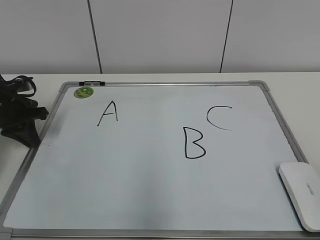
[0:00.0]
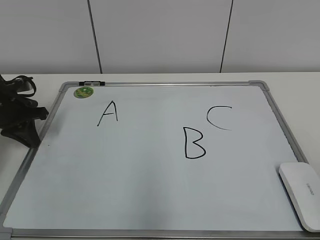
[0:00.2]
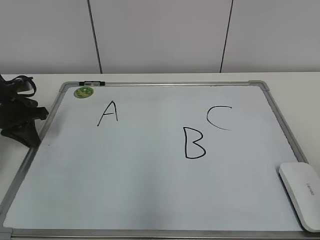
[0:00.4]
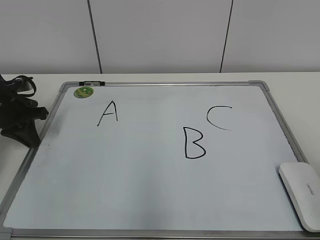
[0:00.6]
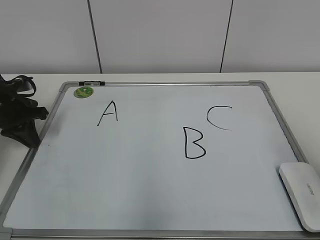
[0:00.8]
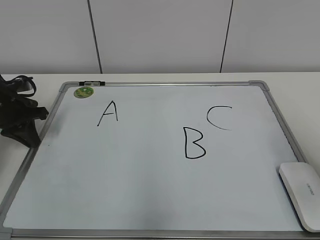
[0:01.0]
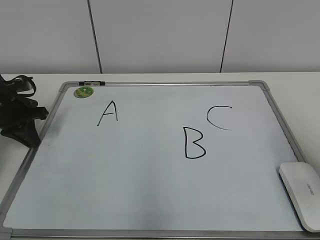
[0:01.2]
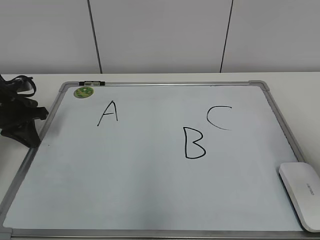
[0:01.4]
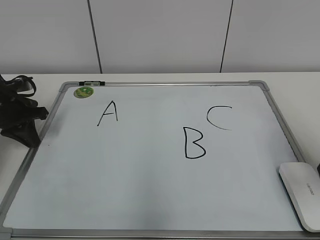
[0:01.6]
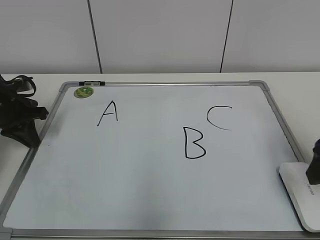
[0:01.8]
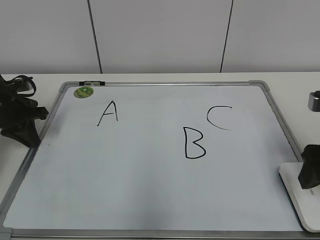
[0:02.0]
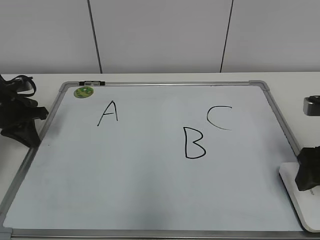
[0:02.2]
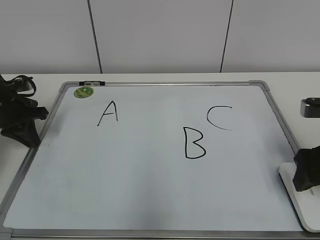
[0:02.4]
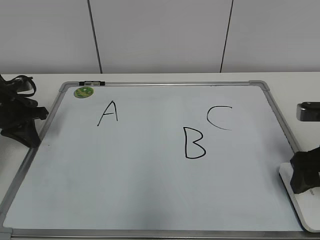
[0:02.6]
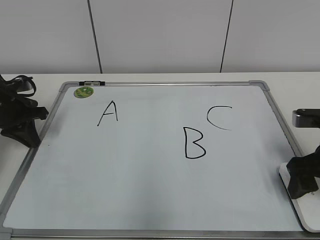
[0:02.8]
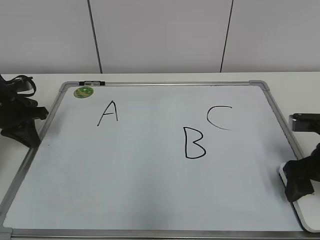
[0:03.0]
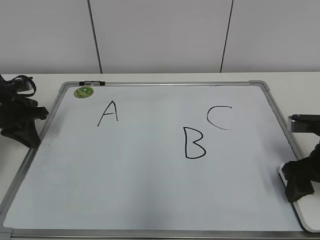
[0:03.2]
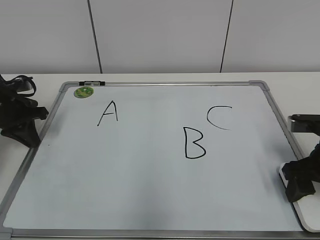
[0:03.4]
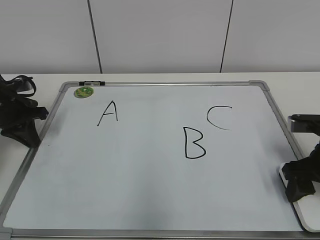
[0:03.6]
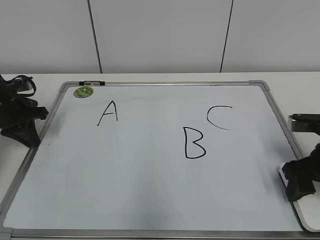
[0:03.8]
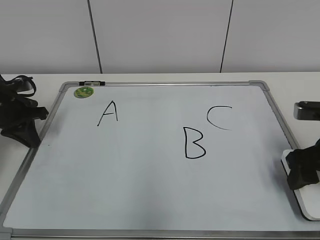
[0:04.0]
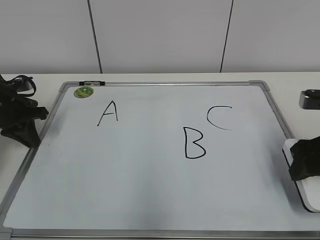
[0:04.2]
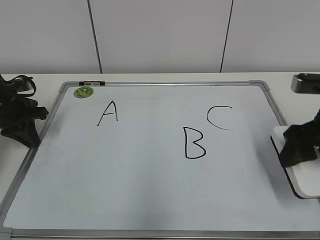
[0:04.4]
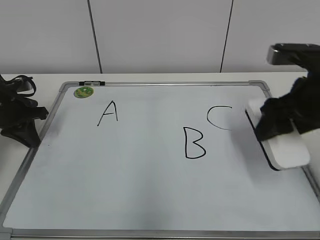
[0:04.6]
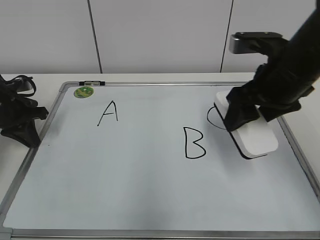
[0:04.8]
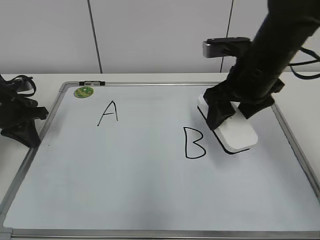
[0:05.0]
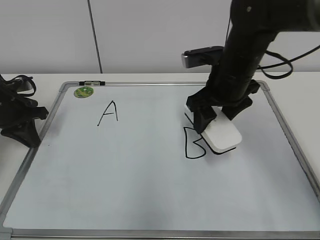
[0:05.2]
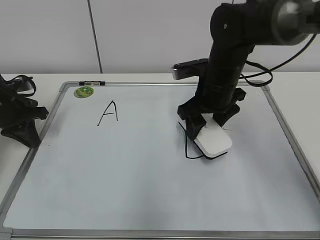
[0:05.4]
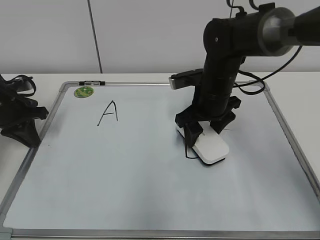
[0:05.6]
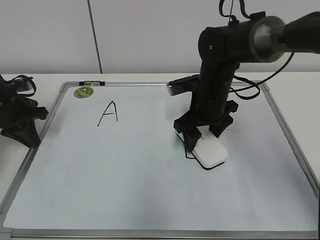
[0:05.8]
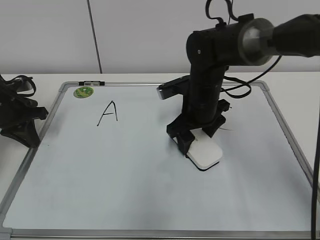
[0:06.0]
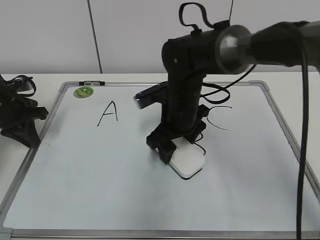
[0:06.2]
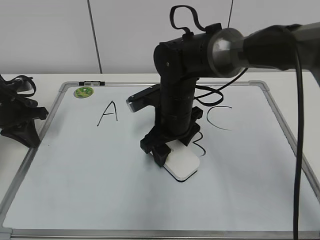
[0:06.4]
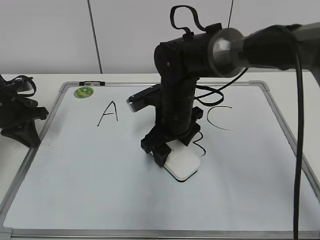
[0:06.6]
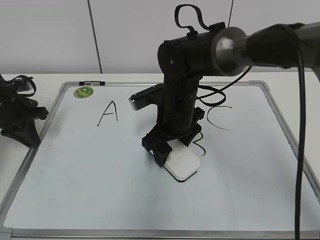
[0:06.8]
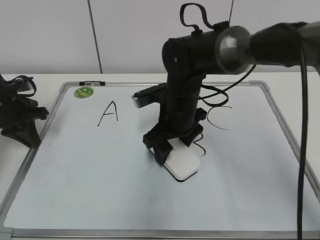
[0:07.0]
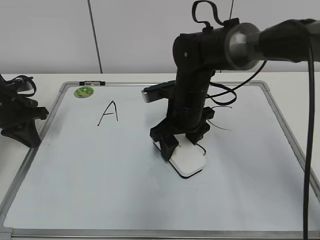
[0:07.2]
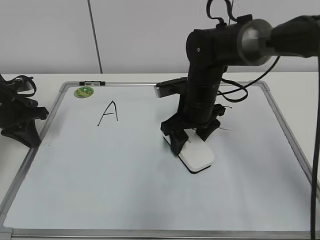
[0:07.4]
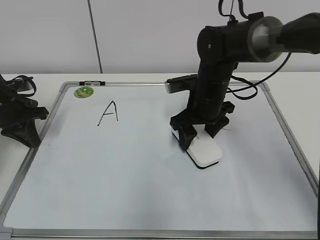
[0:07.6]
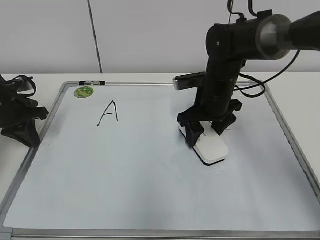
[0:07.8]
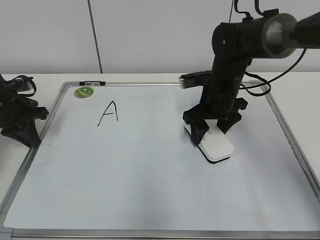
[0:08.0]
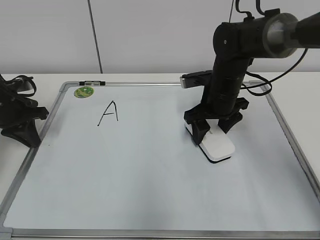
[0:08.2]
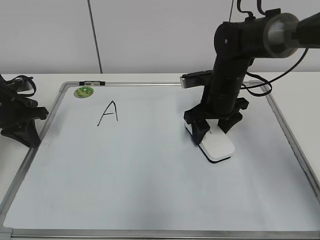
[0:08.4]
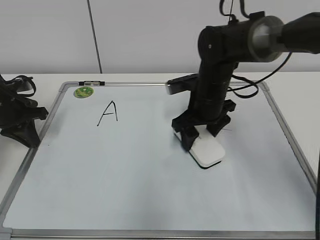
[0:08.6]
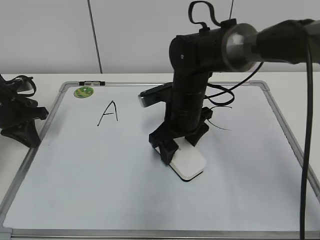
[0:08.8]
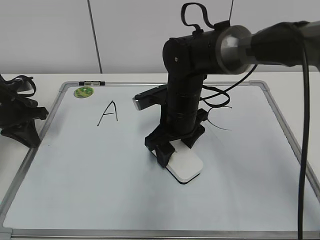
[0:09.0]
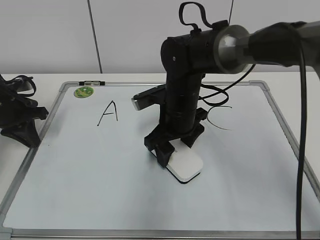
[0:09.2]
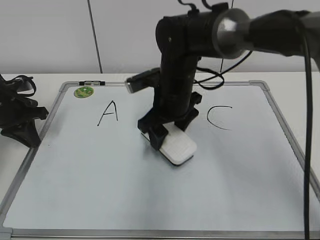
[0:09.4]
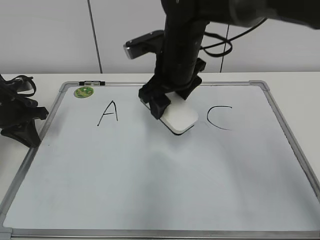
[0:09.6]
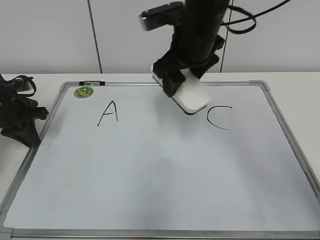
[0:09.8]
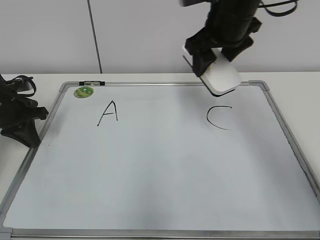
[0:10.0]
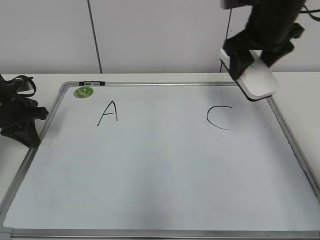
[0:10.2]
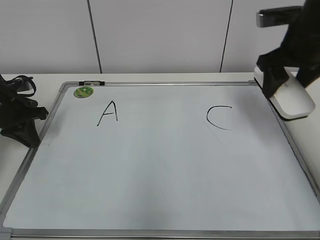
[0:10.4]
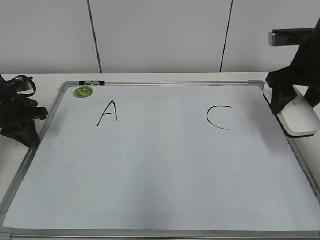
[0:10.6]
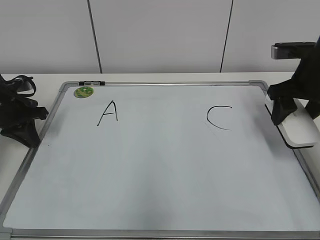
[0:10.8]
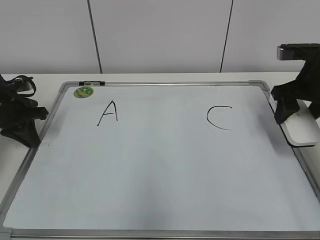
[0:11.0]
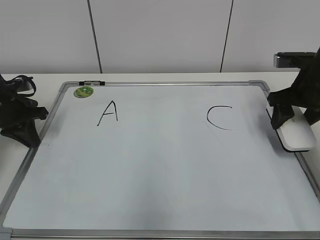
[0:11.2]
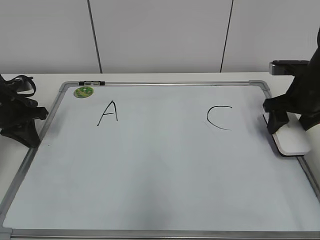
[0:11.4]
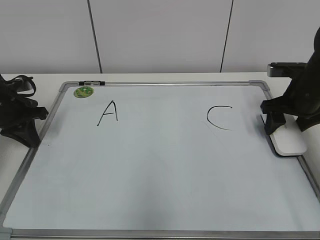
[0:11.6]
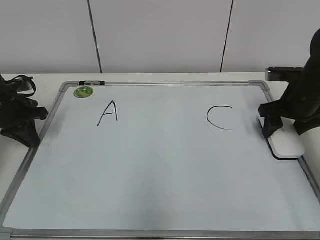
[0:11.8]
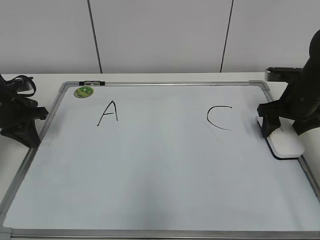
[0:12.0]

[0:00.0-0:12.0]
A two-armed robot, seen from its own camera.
Task of the whole recording: pick up the eraser on the blackboard and erase the letter "B".
Step, 0:00.4 to 0:03.4: Grab the eraser with your right hand.
Step, 0:03.6 to 0:08.4: Erase the letter B with your right hand.
Step, 0:08.6 to 0:12.0: Put down the eraser with your right hand.
0:00.0 to 0:01.6: The right gripper shifts roughly 20 cm forward, and opens its fingers.
0:01.6 to 0:03.0: The right gripper goes roughly 10 cm downward and forward.
0:03.0 to 0:04.4: The right gripper moves upward, some 5 cm, and closes its fingers.
0:04.4 to 0:06.0: The right gripper is displaced to the left and forward by about 20 cm.
0:07.6 to 0:09.0: The right gripper goes approximately 5 cm to the left.
0:09.0 to 0:10.4: The right gripper moves to the right and upward, roughly 25 cm.
0:10.4 to 0:12.0: The right gripper travels downward and to the right by approximately 15 cm.

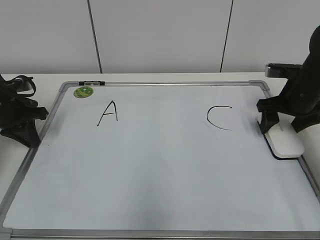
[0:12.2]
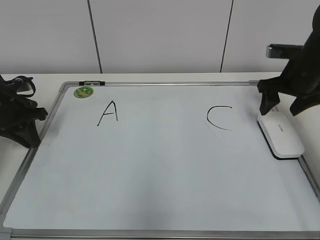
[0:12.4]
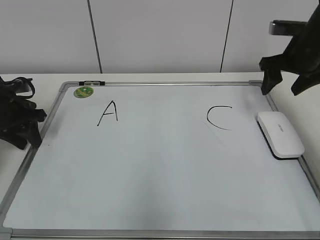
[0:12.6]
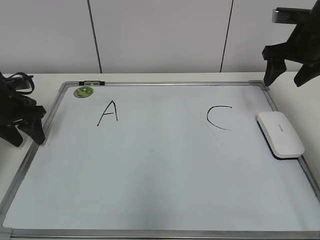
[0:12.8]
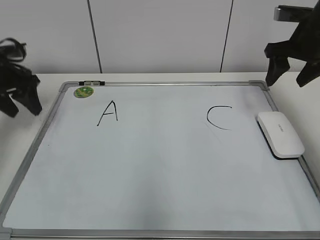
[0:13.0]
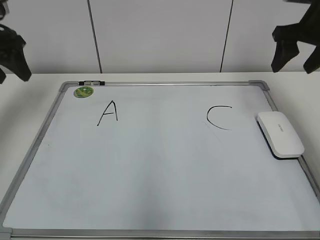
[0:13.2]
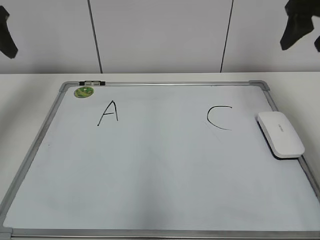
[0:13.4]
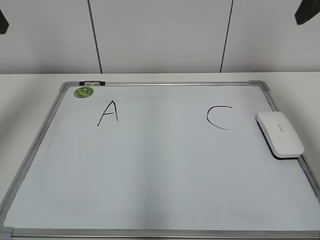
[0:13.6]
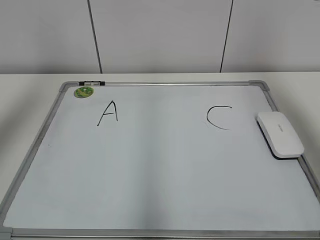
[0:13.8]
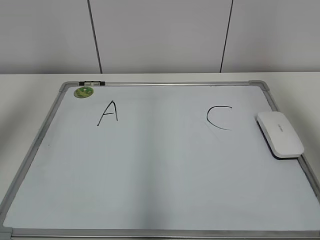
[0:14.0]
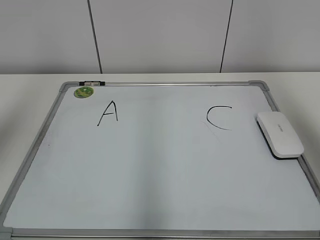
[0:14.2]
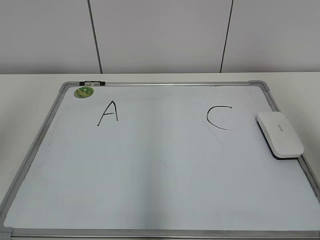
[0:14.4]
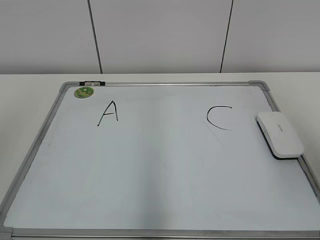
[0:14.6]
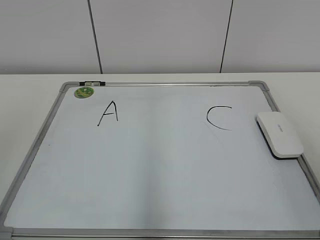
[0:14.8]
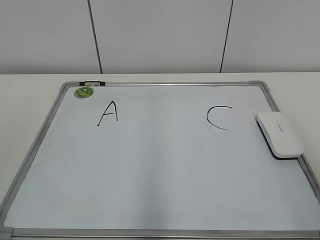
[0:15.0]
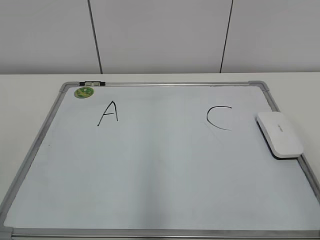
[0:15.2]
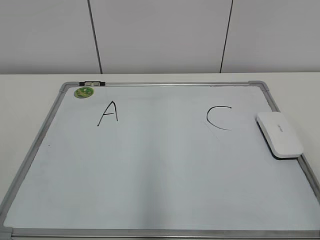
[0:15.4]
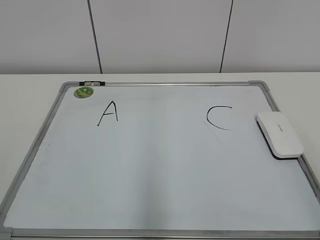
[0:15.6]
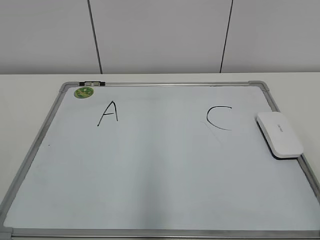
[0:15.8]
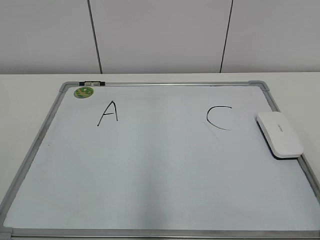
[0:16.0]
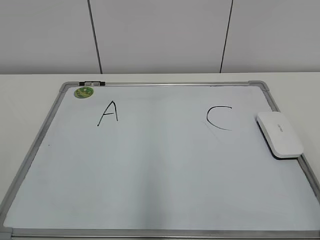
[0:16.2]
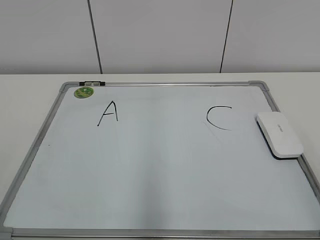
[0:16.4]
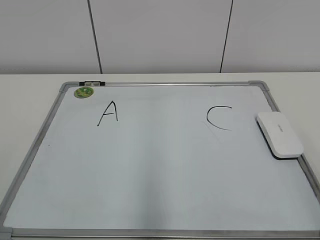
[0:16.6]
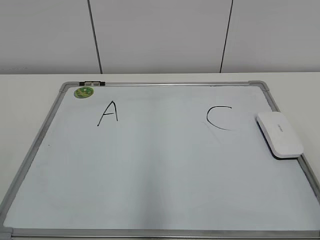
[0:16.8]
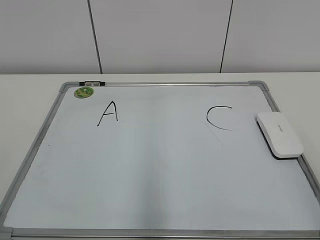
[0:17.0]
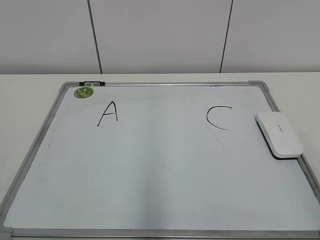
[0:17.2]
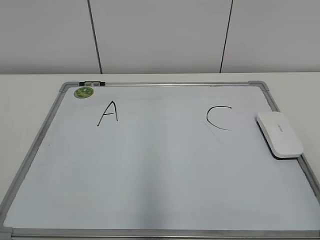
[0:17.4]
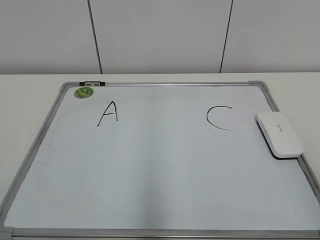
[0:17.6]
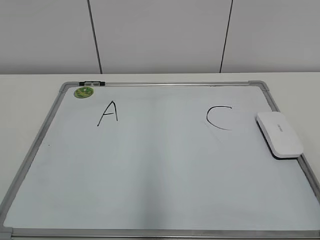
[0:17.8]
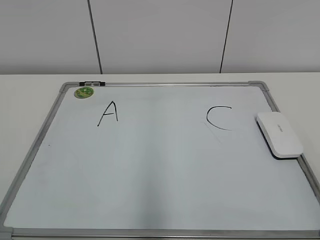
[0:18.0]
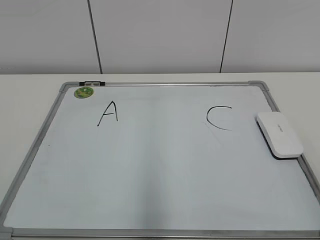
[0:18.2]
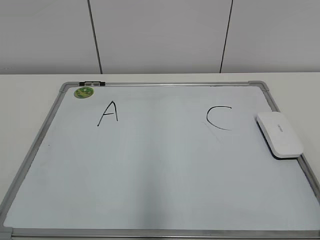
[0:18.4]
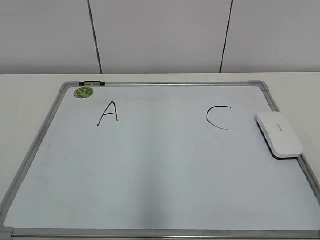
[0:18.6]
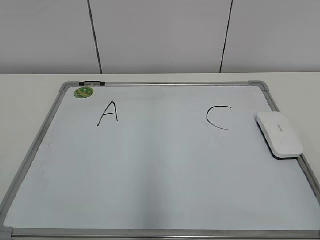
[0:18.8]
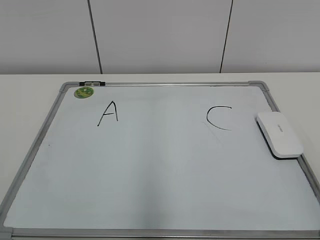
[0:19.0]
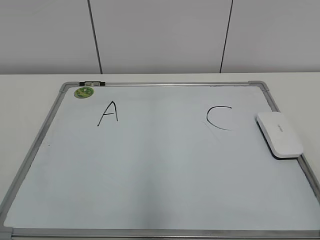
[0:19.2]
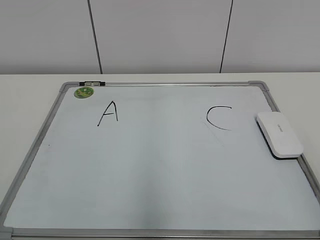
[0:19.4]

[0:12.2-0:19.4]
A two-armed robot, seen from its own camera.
Task of the whole recording: pick up the eraser on the blackboard and erase the letter "B".
0:12.2 to 0:13.6: Both grippers move upward, about 25 cm. The left gripper opens.
0:13.6 to 0:15.0: Both grippers move backward, about 30 cm.
0:18.0 to 0:19.4: The two grippers keep their place.

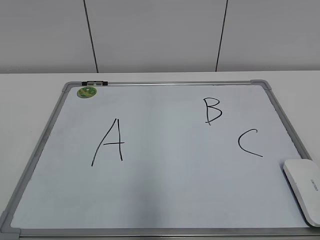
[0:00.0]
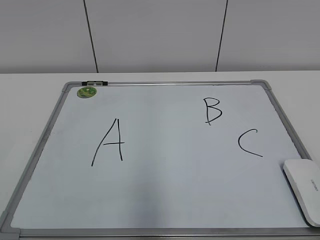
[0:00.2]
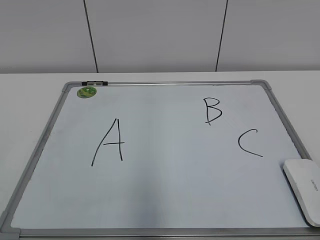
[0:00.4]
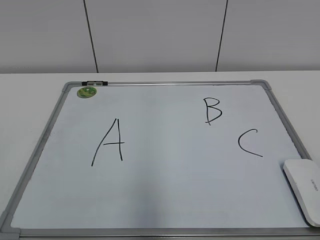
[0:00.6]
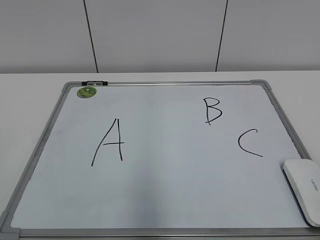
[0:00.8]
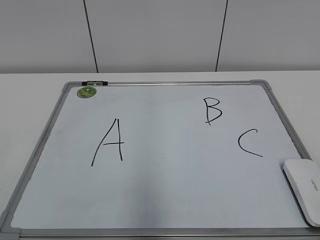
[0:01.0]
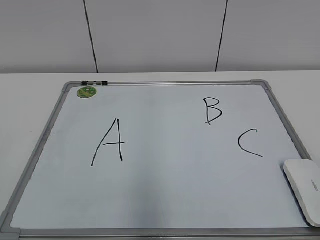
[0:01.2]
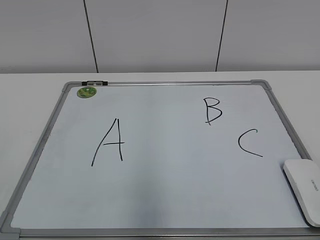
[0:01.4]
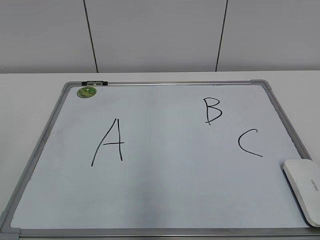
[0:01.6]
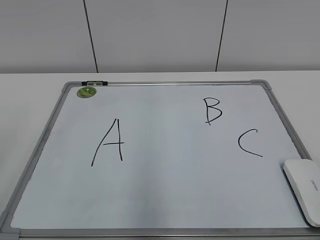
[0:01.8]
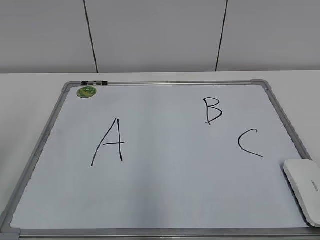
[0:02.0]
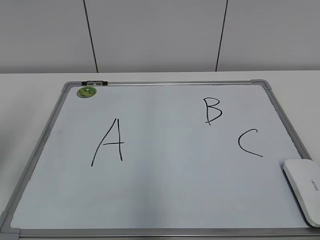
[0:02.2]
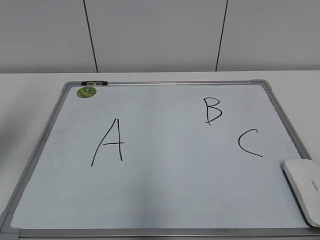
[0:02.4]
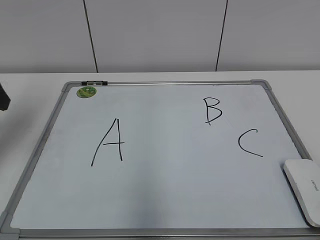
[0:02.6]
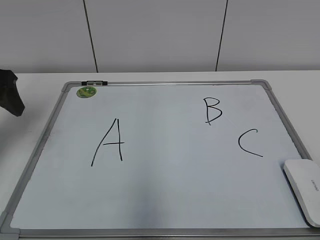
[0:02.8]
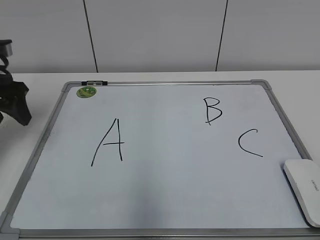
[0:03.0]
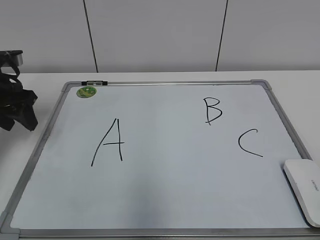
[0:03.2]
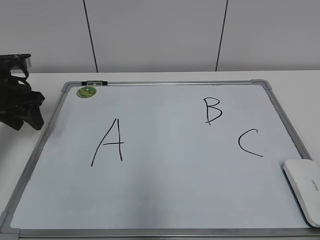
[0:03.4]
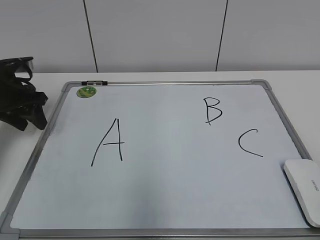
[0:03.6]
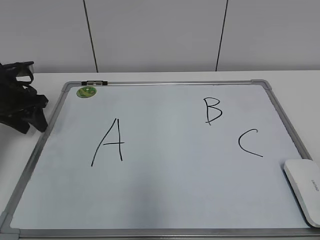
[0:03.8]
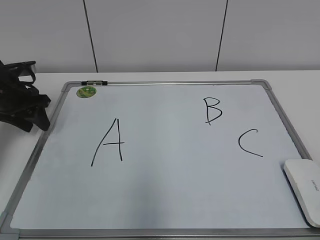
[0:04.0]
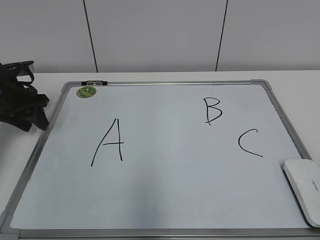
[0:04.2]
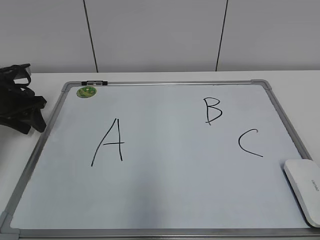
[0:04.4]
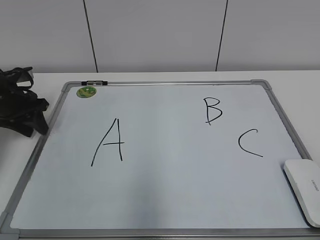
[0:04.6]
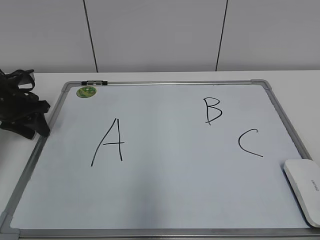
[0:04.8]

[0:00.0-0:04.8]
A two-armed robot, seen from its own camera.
Task of the whole recording: pick up the eraser on the blackboard and erase the letter "B".
0:01.6 to 0:03.2: The left gripper heads forward, covering roughly 30 cm.
0:03.2 to 0:04.8: The left gripper is displaced downward by roughly 5 cm.
